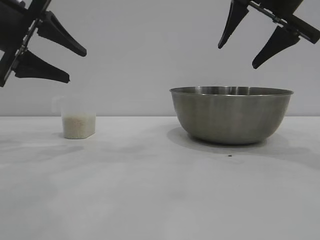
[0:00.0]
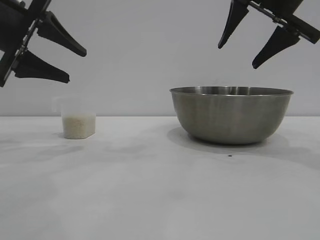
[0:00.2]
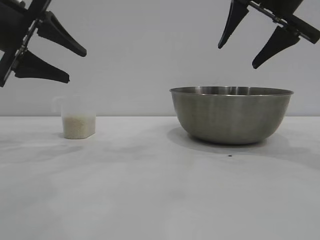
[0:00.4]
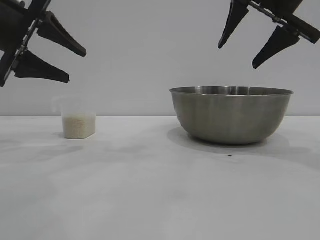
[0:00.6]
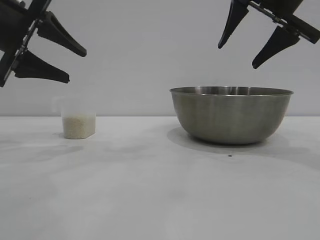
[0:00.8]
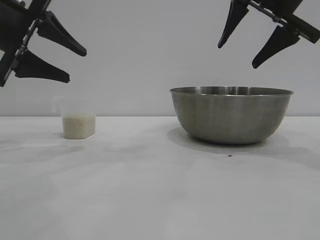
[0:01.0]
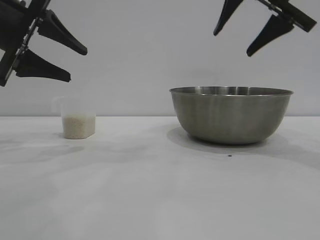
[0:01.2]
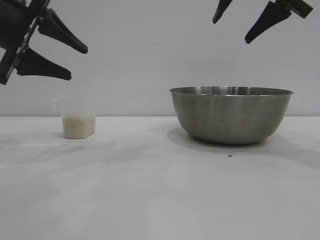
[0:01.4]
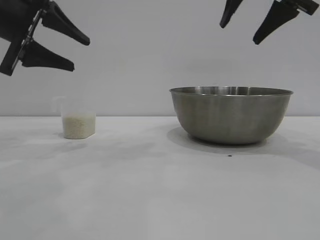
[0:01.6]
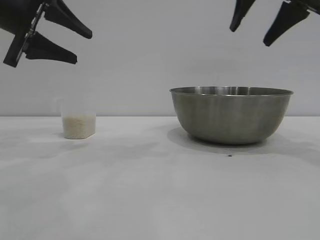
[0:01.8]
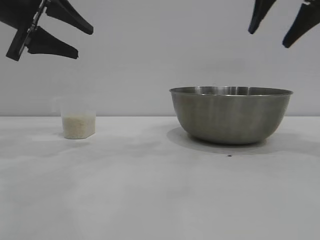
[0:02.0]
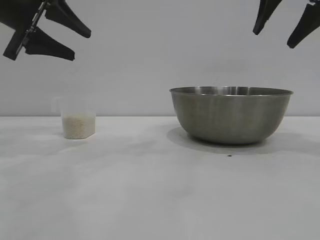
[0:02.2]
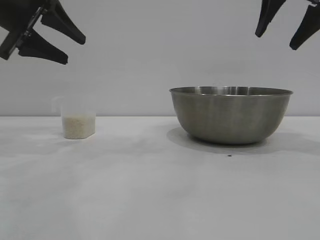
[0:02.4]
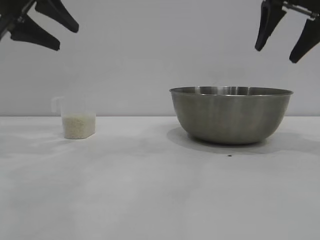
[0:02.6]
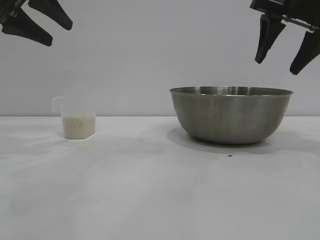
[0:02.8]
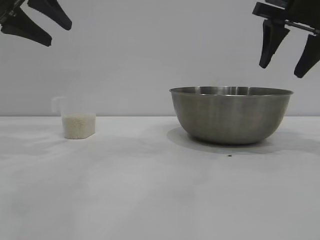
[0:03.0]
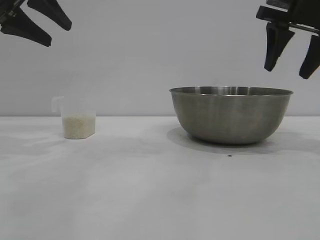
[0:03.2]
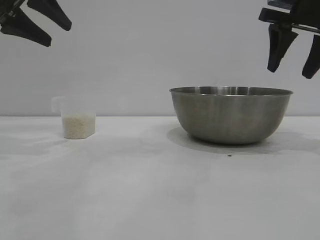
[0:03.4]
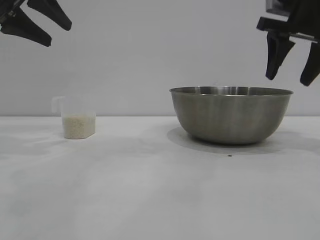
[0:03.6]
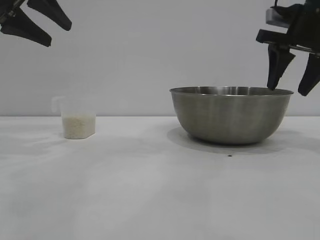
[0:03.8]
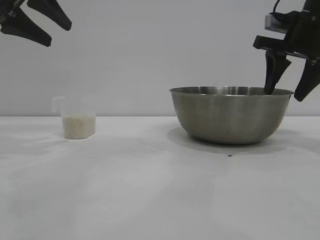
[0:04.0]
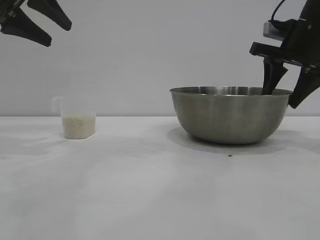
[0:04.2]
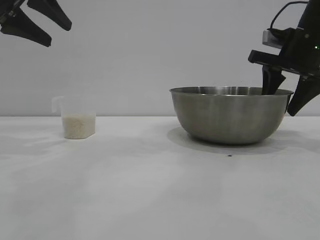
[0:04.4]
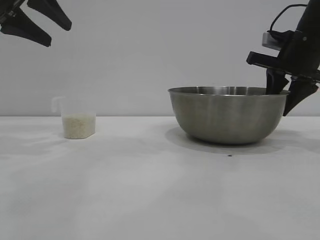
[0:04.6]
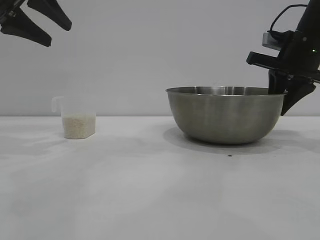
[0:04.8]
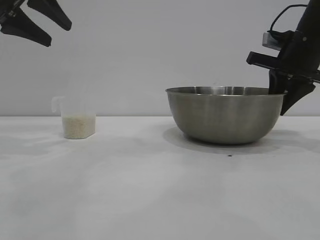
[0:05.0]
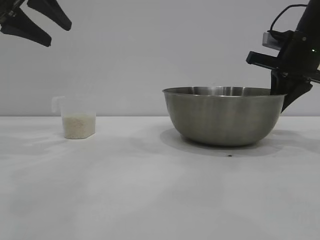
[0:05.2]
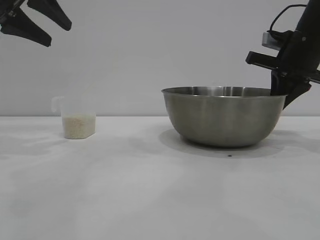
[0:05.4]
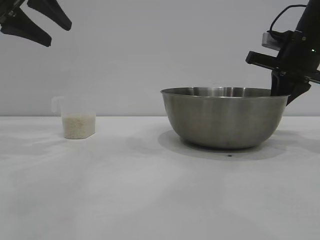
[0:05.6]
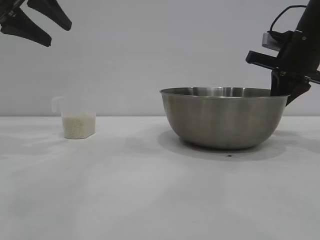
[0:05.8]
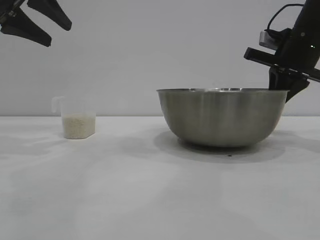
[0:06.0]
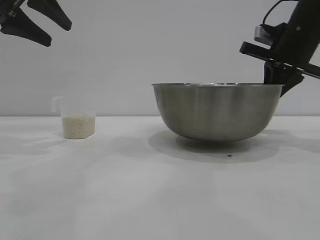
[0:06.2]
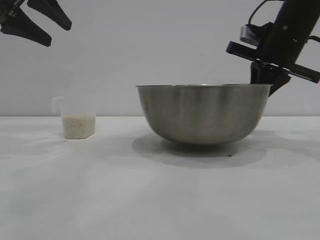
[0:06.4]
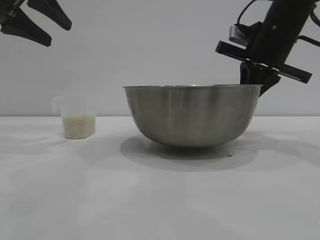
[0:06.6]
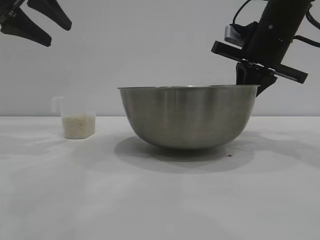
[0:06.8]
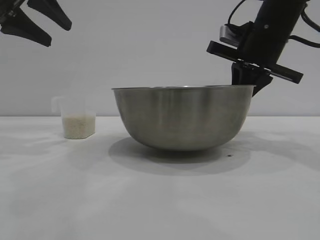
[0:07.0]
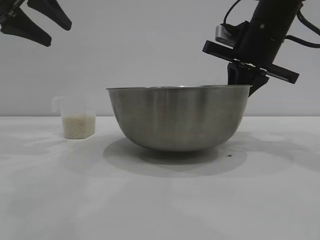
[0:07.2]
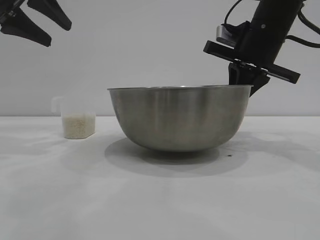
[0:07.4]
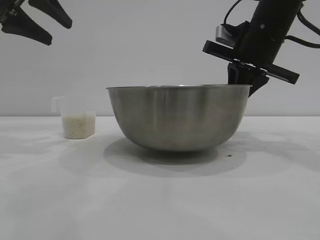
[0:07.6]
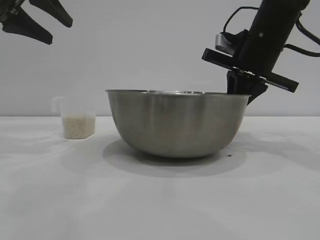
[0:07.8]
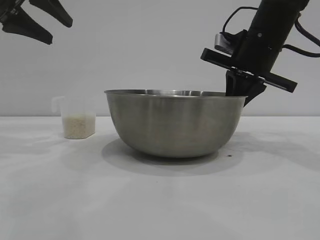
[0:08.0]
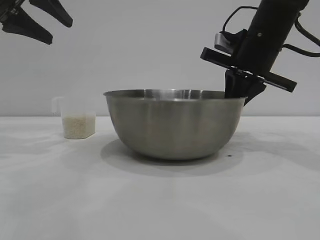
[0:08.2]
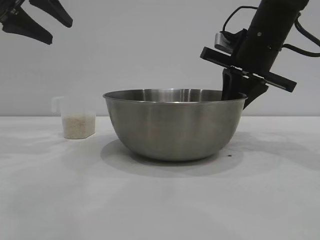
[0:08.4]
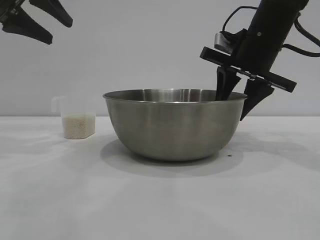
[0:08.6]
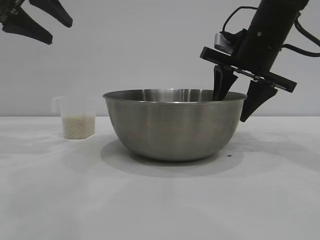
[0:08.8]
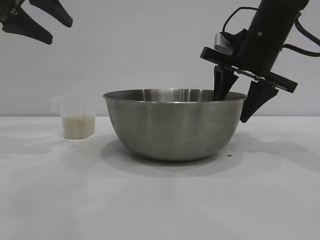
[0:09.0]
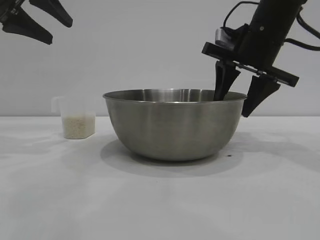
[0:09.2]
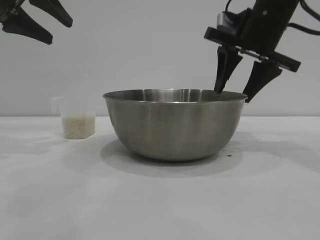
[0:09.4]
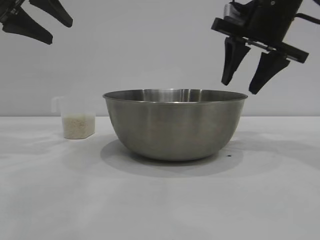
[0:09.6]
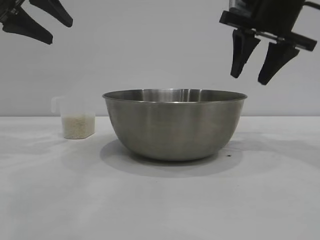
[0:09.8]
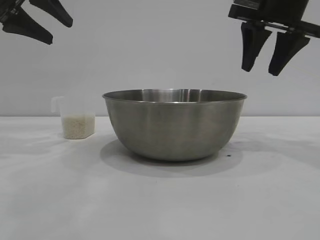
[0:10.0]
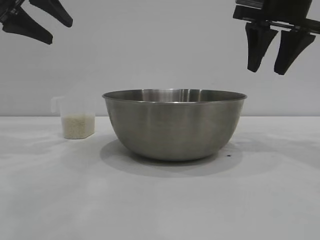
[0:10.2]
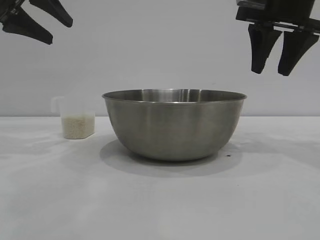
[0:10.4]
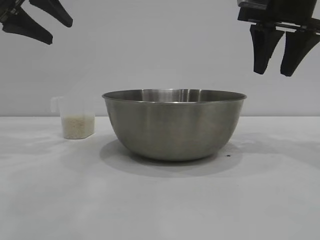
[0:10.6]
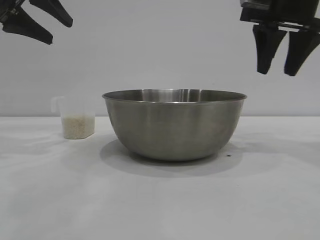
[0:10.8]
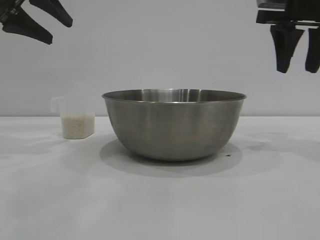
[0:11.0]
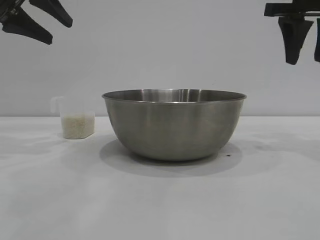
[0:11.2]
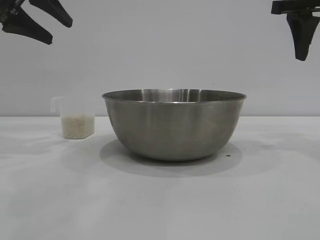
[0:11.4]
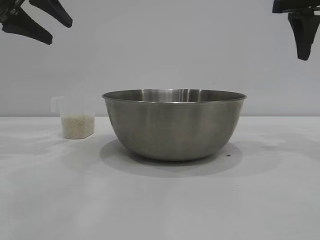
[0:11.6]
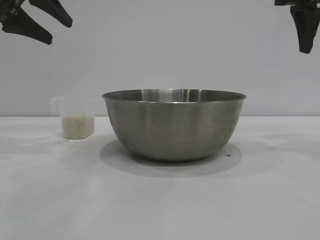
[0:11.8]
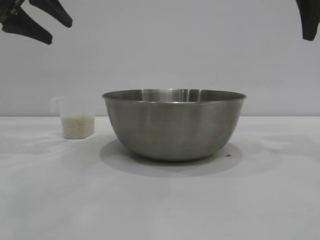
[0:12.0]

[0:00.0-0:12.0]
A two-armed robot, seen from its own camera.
Task of the whole recording: the right gripper grasp the rice container and place it in the center of the table, the left gripper grasp the rice scoop and pour the rice into the rice container.
Step, 0:00.0 to 0:09.4: Move the bowl to the center of view with the right gripper.

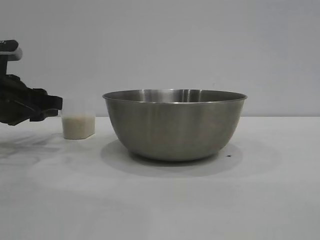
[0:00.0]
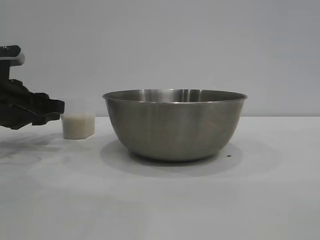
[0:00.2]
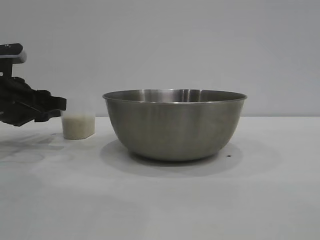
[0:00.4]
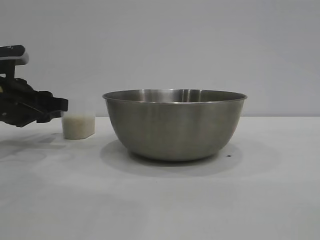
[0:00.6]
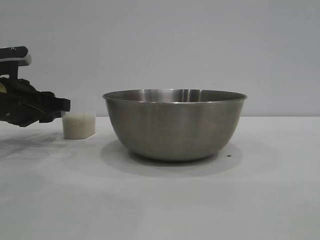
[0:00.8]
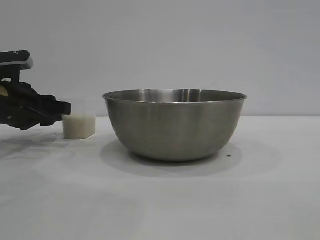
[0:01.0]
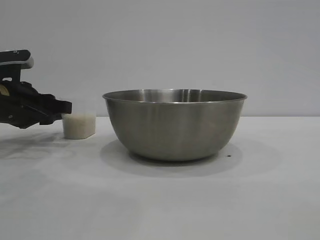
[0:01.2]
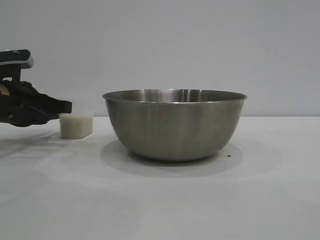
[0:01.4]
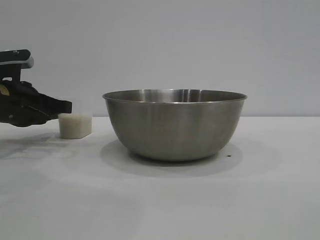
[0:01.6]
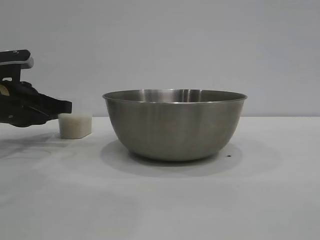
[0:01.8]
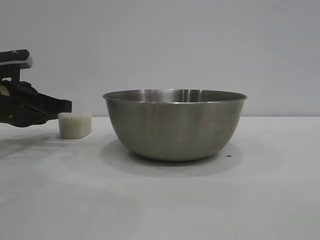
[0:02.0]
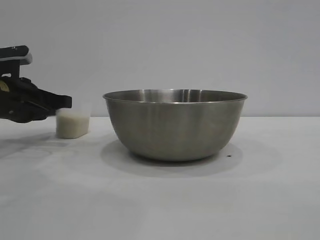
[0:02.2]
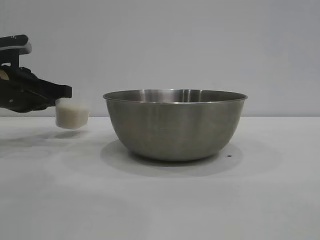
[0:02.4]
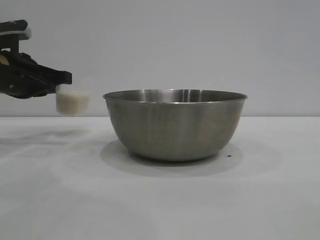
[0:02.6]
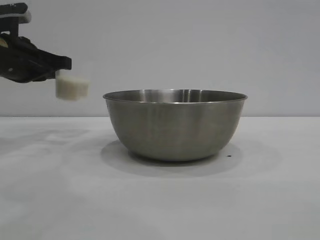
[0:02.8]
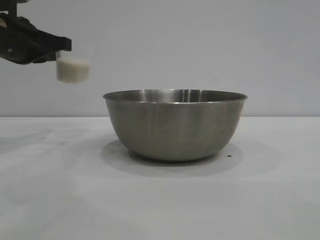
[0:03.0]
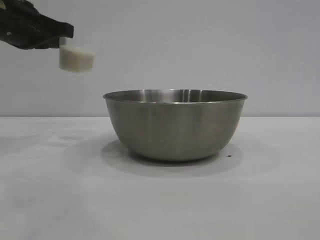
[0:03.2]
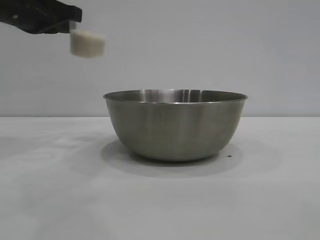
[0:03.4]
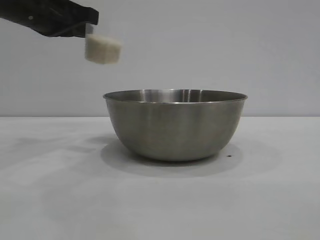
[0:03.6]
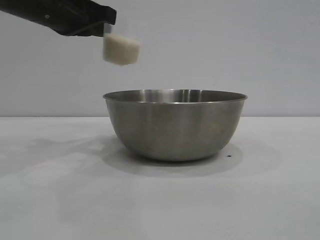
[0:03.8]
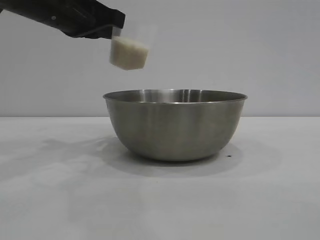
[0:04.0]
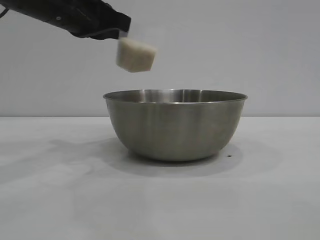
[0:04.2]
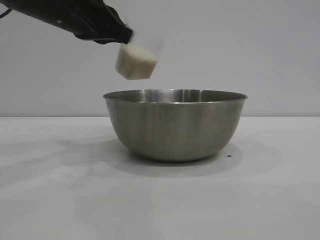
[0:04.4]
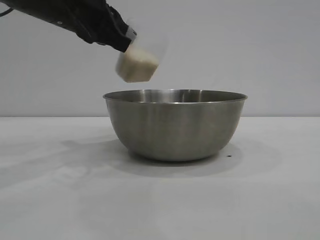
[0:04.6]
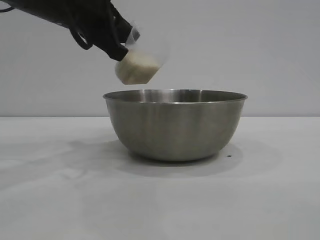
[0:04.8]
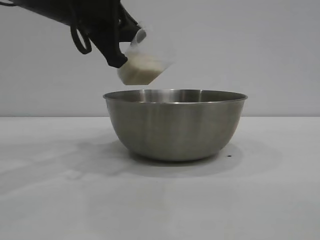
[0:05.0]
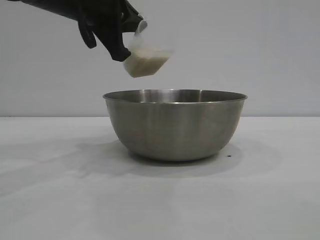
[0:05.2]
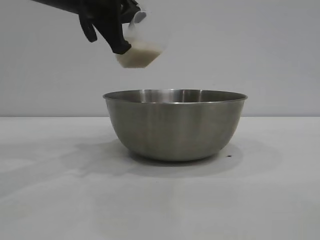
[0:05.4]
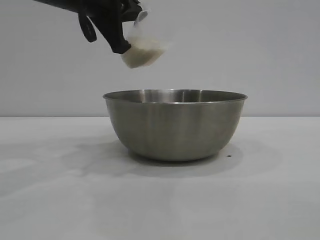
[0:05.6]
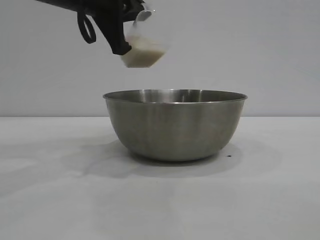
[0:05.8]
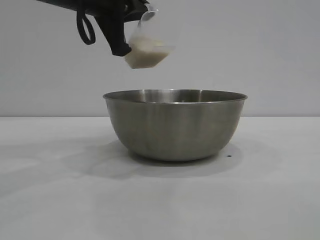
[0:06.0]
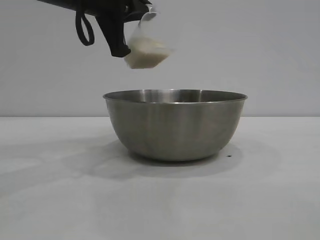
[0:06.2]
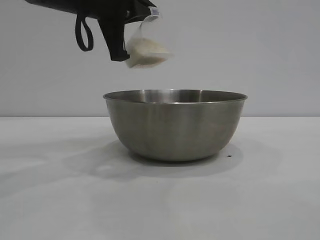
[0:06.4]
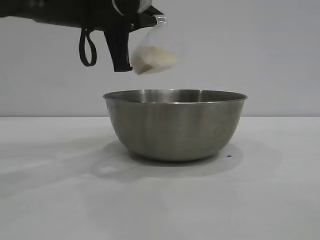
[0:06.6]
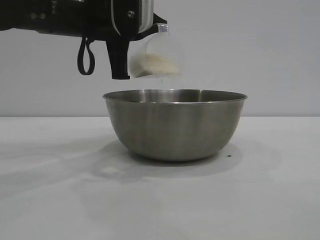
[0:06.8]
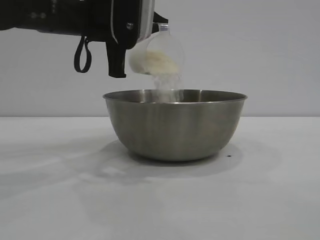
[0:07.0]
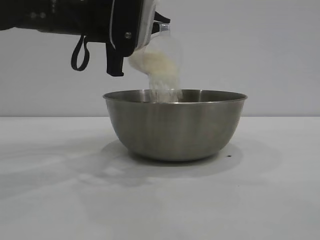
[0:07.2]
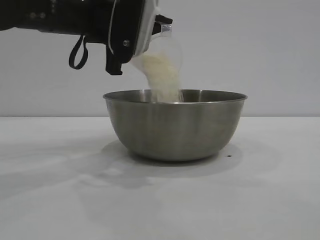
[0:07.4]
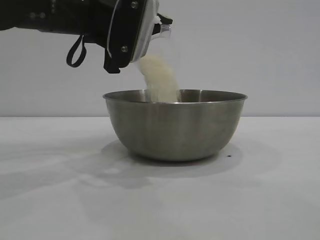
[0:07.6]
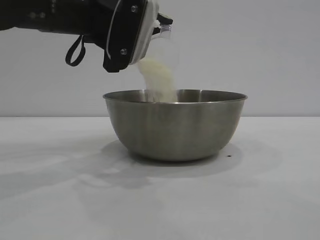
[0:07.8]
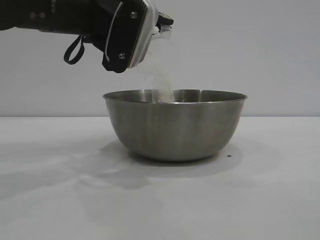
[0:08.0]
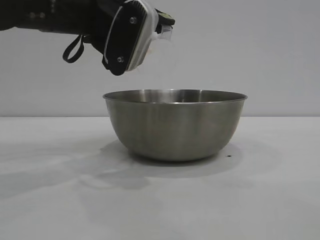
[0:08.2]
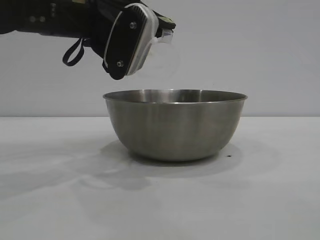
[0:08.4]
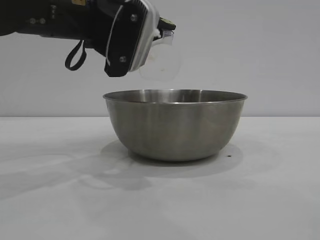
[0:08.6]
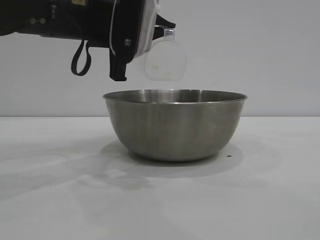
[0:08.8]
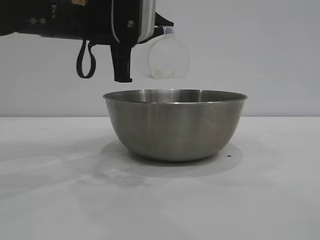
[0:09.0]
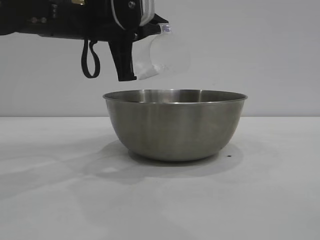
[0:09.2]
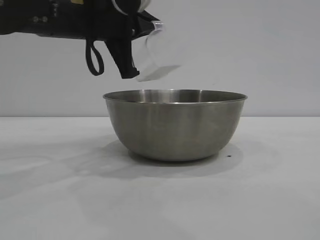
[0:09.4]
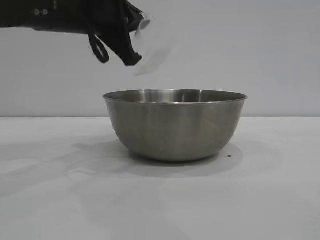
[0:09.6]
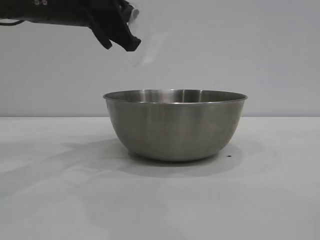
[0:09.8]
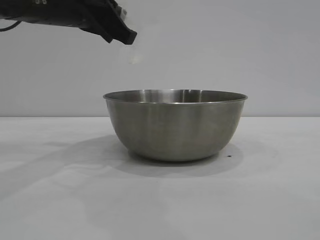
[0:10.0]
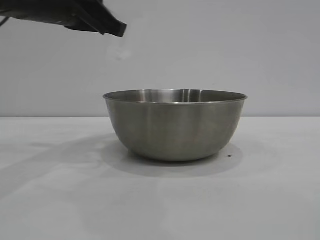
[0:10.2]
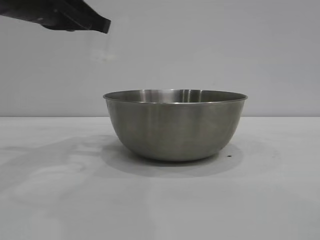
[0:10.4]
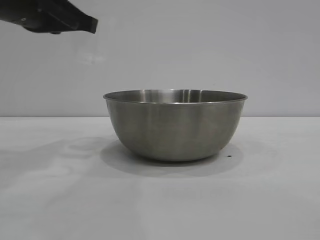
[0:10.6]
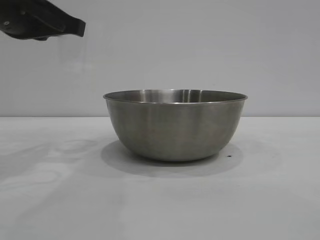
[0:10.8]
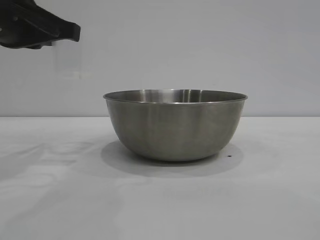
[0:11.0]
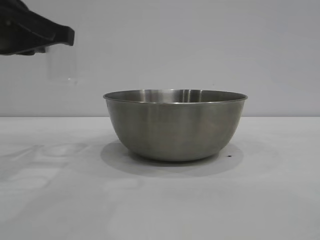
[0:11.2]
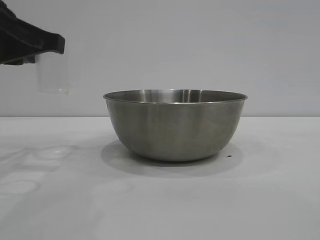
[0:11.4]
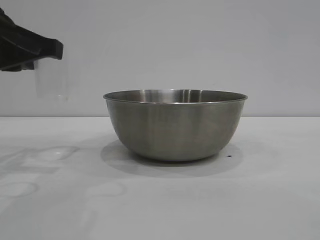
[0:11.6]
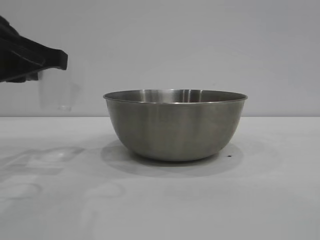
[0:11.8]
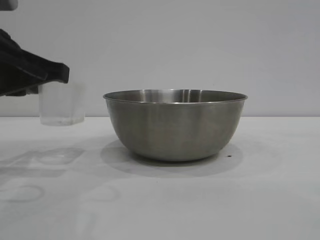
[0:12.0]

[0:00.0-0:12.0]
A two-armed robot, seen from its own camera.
Task of the whole recording: the right gripper grasp the rice container and place it in the center of the table, the left gripper grasp the rice scoop and pour the rice into the rice container.
Step, 0:00.0 to 0:03.0: Pick up the cup with rice in it with the left gripper.
Step, 0:03.2 to 0:09.8: Pour the rice from the cup into the bowl with the left gripper.
